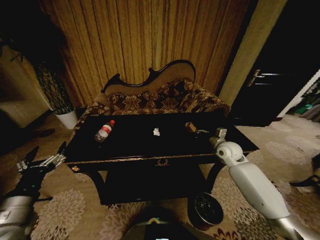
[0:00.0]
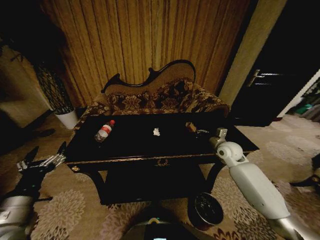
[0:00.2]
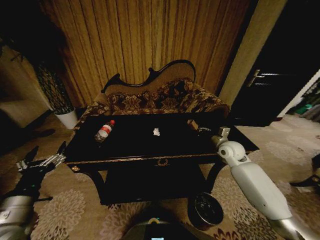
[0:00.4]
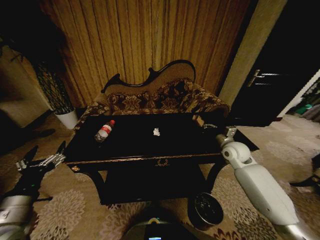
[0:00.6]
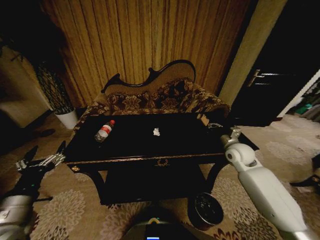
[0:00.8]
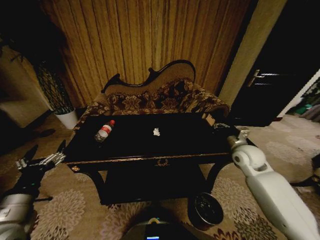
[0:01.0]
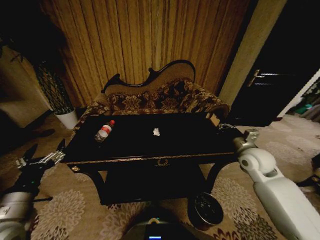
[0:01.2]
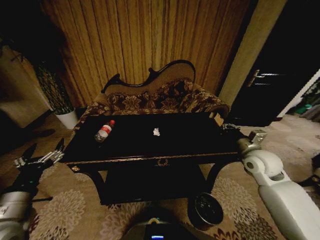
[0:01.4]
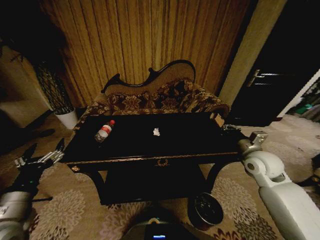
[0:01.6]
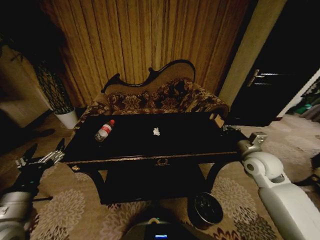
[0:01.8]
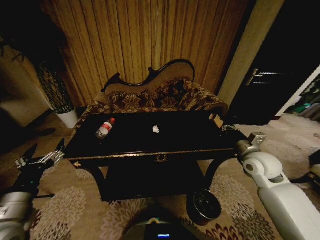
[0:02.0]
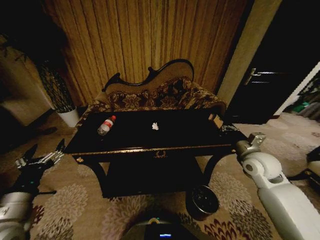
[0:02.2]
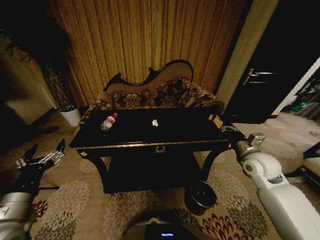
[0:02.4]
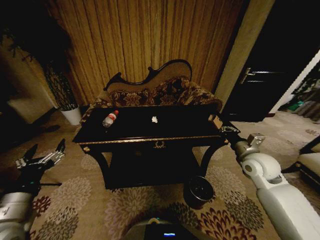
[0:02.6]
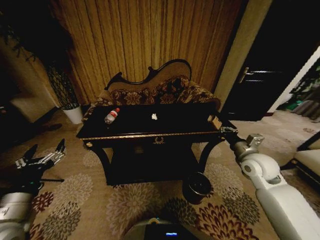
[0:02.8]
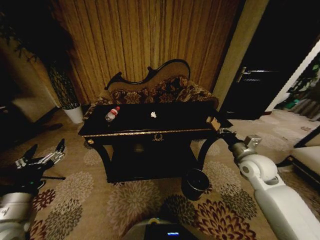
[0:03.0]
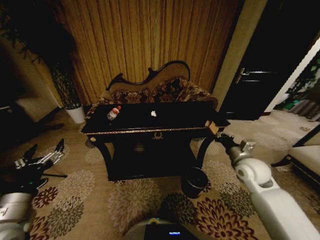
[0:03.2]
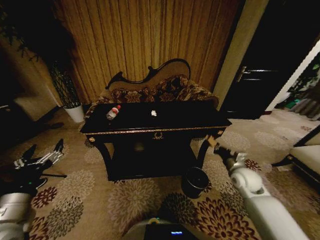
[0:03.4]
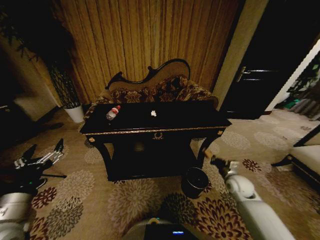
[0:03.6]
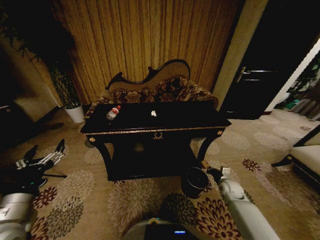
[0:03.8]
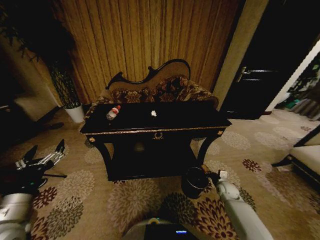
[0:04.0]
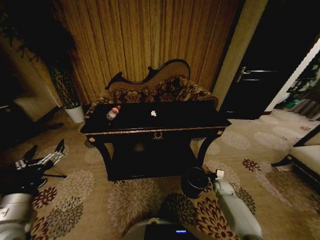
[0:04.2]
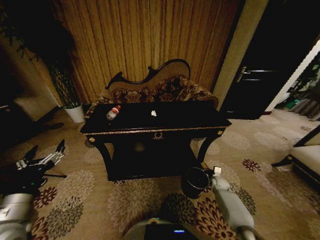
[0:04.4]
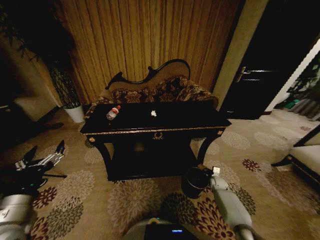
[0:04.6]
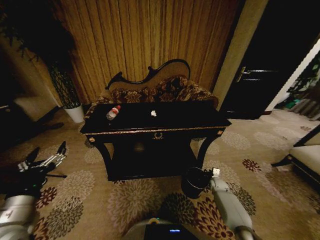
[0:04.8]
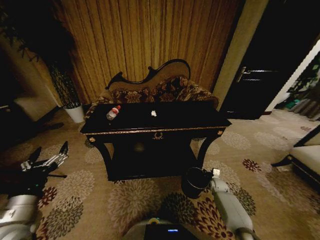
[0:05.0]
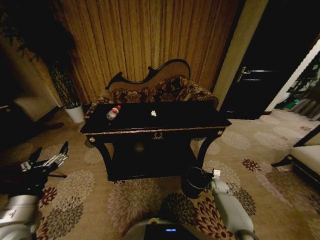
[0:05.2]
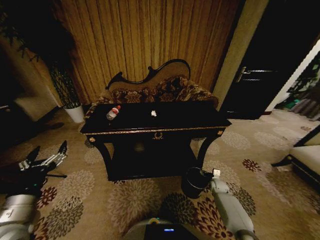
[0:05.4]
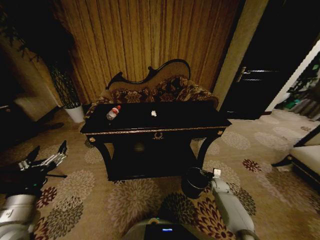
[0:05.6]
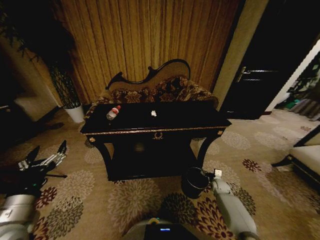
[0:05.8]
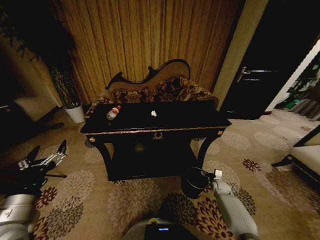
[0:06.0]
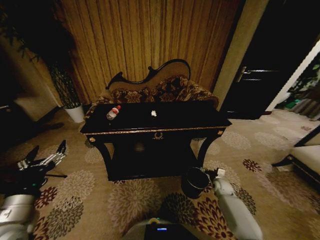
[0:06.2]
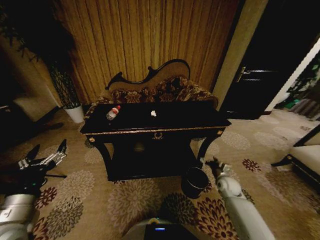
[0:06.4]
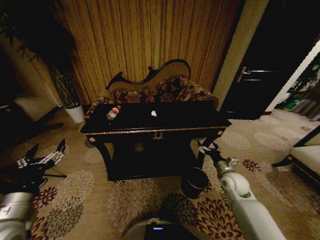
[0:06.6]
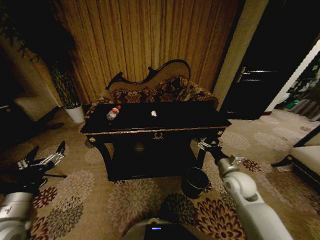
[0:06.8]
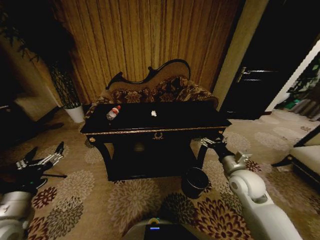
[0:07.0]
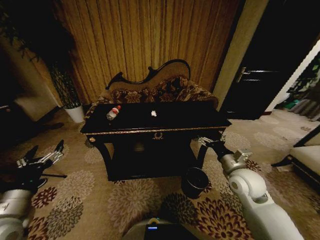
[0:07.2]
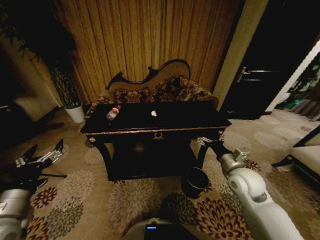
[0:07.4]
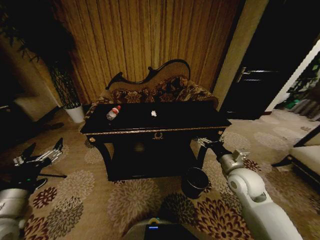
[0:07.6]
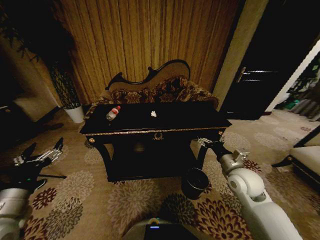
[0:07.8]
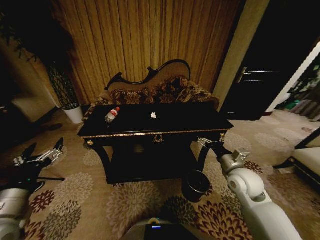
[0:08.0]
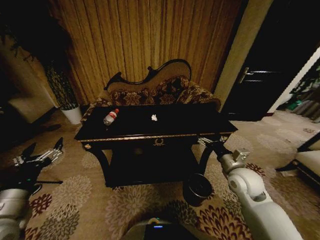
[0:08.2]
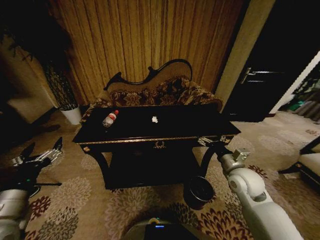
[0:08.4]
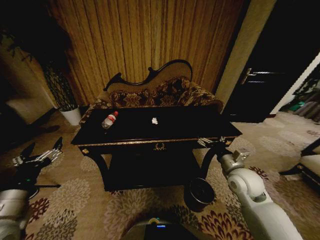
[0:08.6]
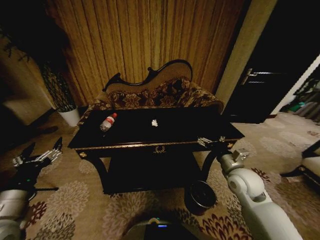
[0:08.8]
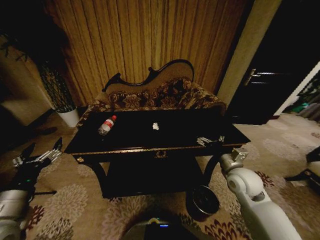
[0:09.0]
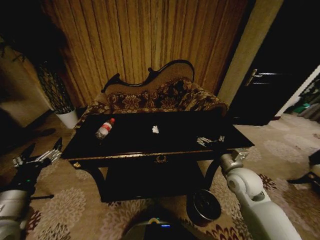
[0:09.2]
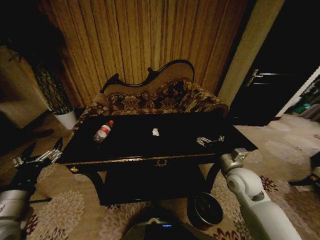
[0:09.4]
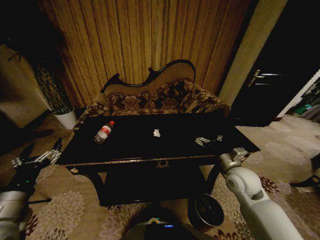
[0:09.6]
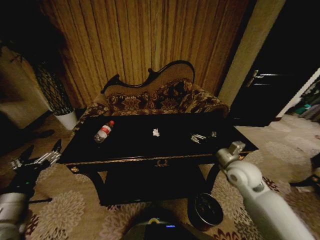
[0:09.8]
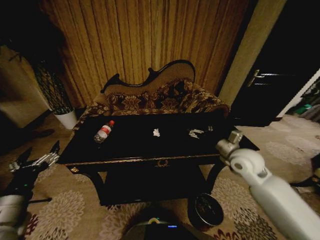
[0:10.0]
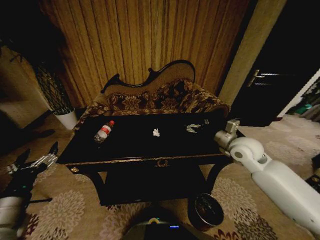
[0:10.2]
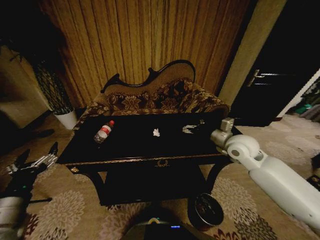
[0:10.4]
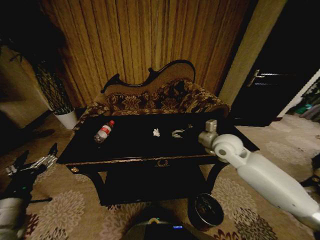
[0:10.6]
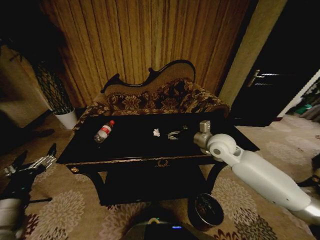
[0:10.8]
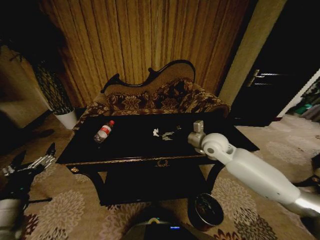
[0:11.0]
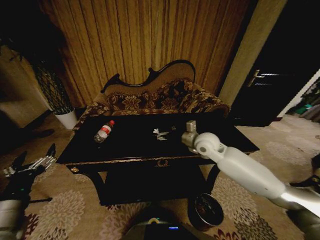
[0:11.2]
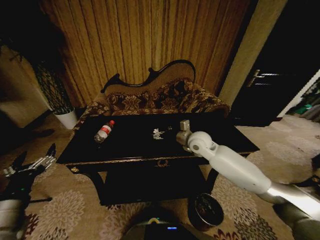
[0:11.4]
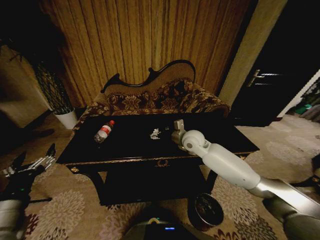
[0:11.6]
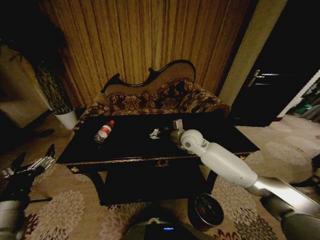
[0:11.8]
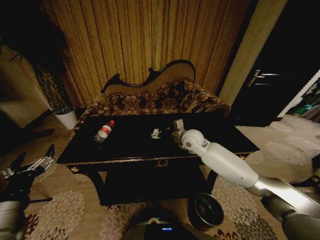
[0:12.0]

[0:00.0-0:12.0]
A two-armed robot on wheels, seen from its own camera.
Task of the whole recording: Move to the front of the table and place the trash on the table into the trash bin.
0:00.0 to 0:01.6: The right gripper shifts approximately 10 cm backward and upward.
0:03.0 to 0:04.4: The right gripper is displaced downward by approximately 35 cm.
0:04.4 to 0:06.0: The right gripper opens up.
0:06.0 to 0:07.6: The right gripper moves upward, some 30 cm.
0:09.0 to 0:10.4: The right gripper moves forward and upward, about 10 cm.
0:10.4 to 0:12.0: The right gripper is displaced to the left and forward by about 15 cm.

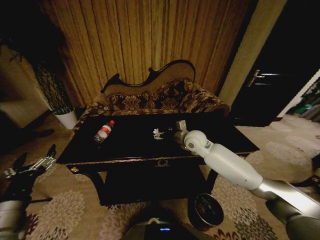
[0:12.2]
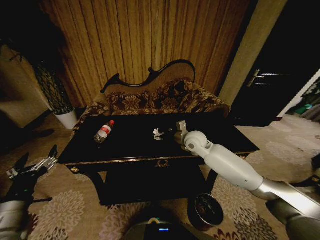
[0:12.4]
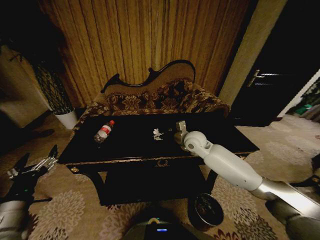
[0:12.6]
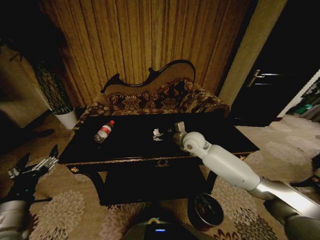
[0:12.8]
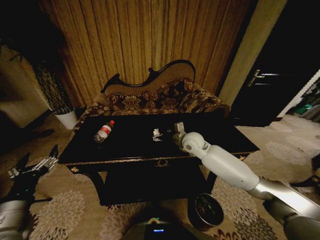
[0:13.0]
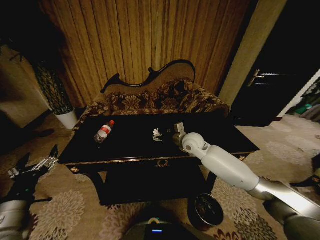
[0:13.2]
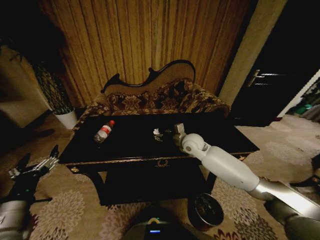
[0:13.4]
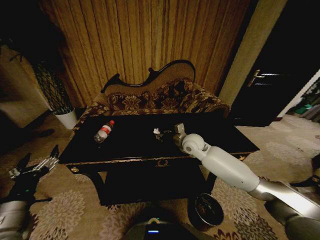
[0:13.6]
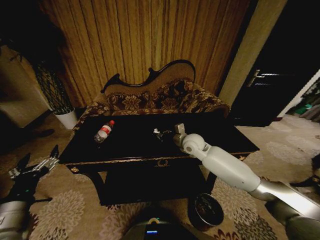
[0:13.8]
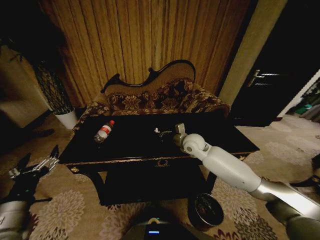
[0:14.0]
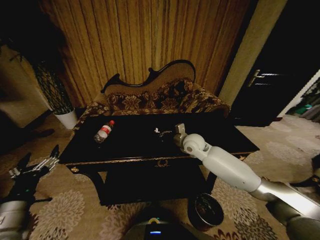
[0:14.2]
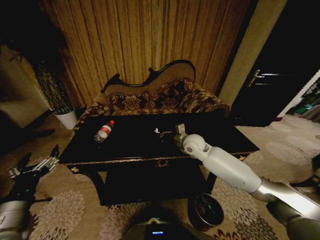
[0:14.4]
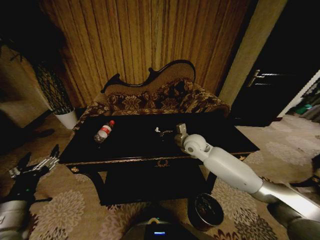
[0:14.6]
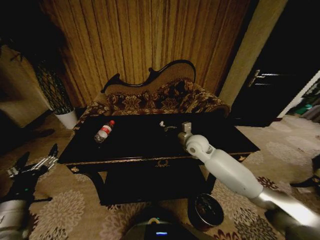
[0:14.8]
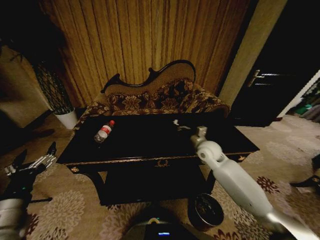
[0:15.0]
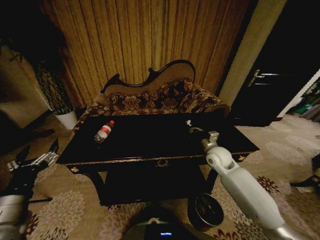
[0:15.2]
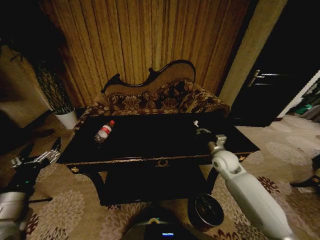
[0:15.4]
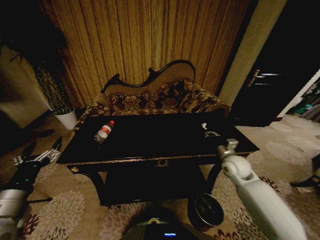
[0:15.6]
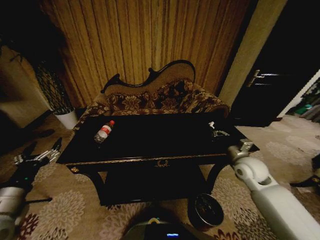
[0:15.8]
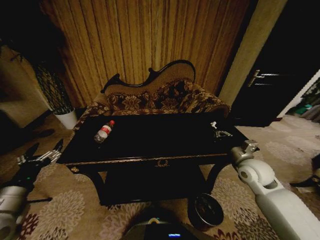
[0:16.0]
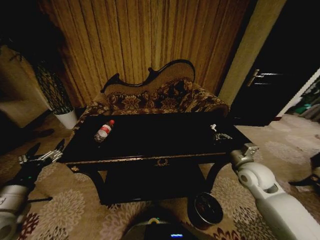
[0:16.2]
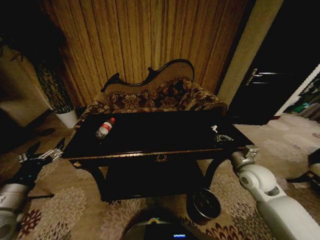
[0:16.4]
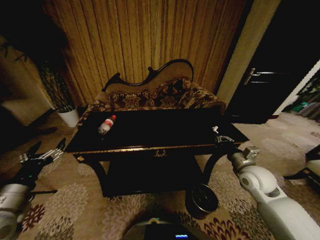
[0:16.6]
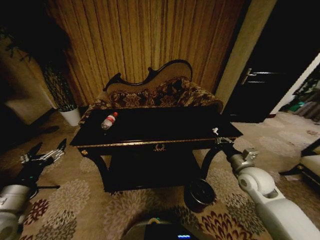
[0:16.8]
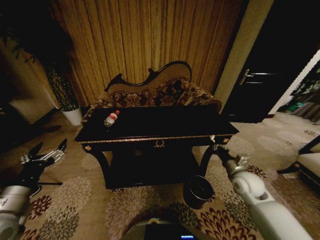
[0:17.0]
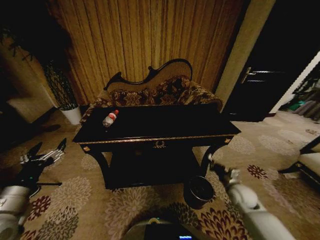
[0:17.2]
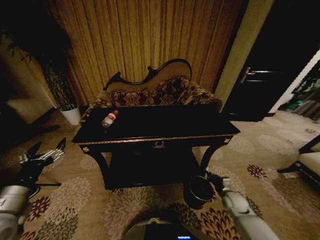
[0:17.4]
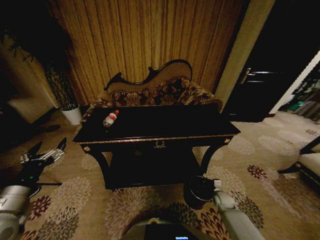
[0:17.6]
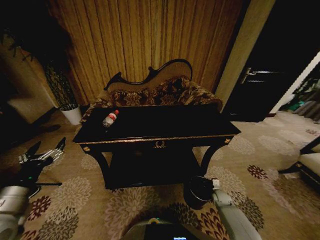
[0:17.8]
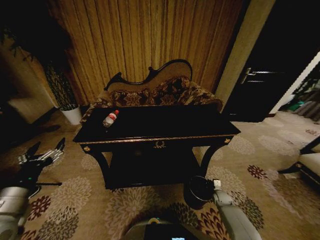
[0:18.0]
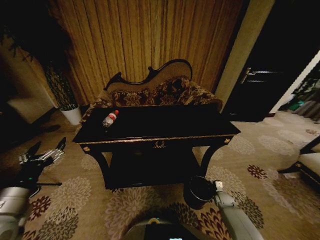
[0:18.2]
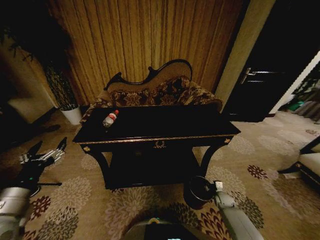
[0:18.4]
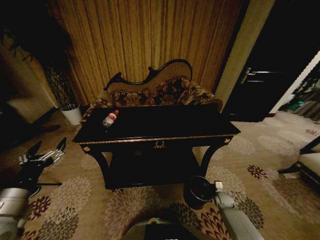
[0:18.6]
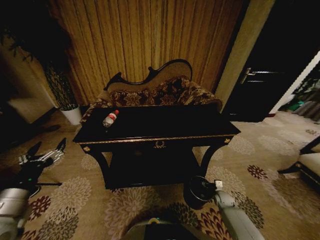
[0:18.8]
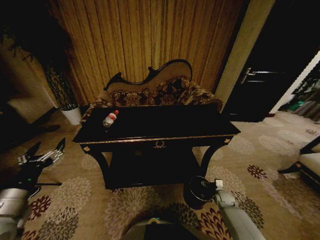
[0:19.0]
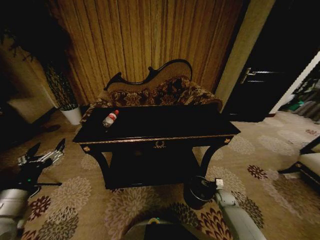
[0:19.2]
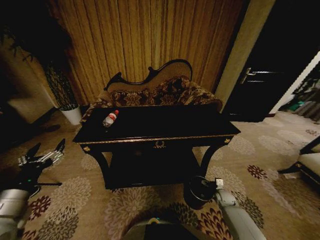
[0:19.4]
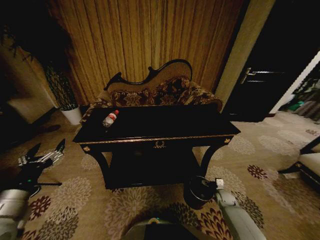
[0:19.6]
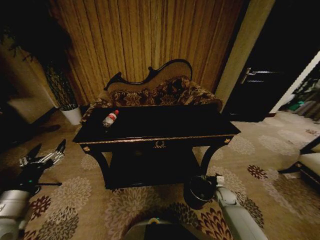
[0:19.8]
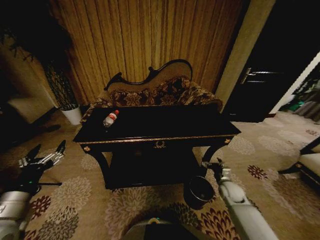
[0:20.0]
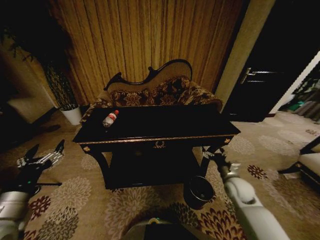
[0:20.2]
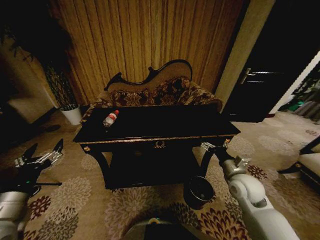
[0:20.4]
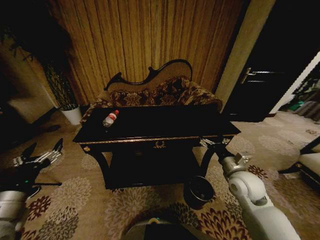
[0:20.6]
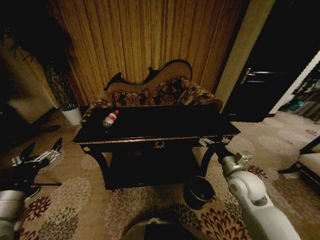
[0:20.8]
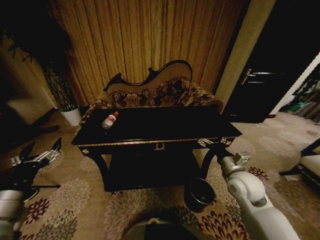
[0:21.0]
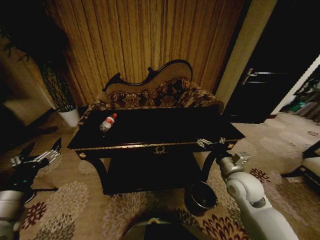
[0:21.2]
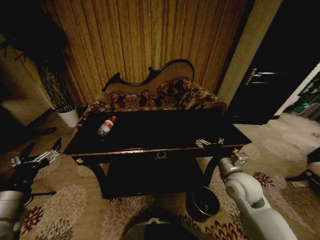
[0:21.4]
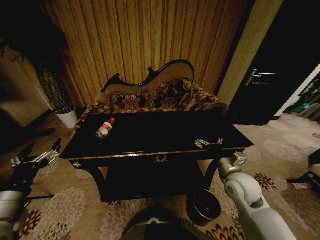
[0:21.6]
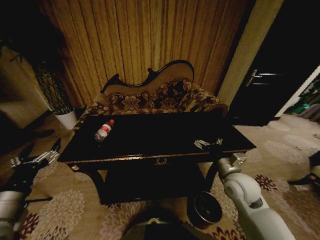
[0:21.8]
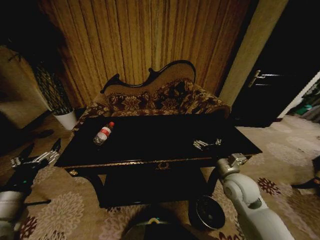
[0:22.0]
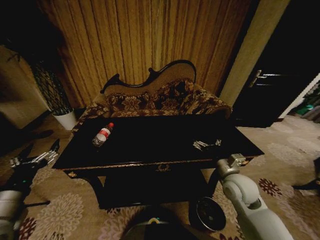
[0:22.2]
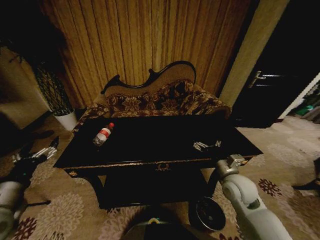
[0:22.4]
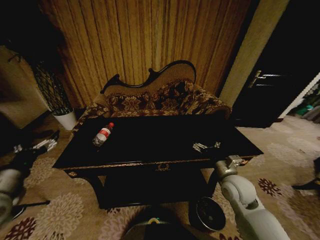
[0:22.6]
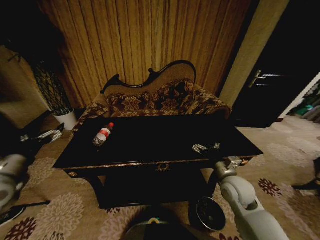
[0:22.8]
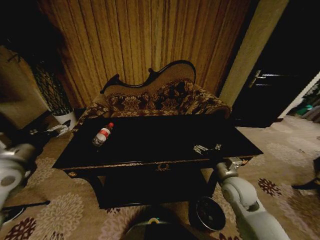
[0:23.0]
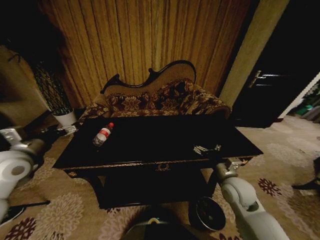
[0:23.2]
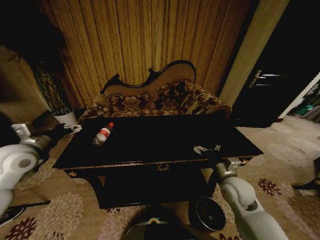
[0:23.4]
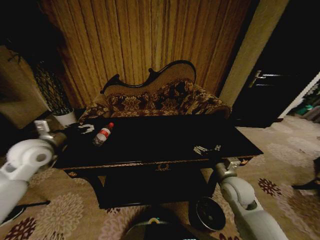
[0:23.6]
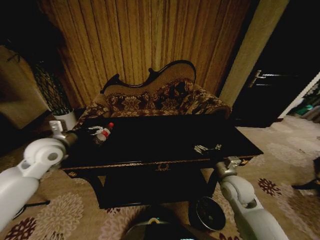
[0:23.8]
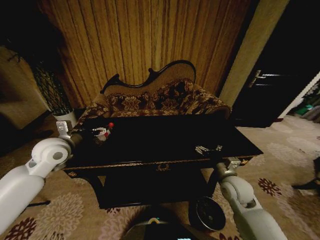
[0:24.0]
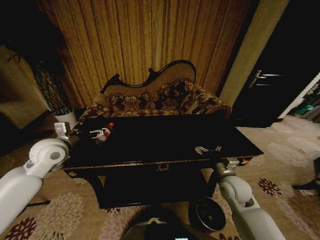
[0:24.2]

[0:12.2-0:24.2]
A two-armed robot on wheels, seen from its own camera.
Task of the whole recording: Move to the front of the table and place the trash on the table into the trash bin.
0:12.2 to 0:13.8: The right gripper closes its fingers.
0:13.8 to 0:15.2: The right gripper is displaced to the right by some 10 cm.
0:15.2 to 0:16.6: The right gripper moves backward and to the right, approximately 15 cm.
0:16.6 to 0:18.2: The right gripper shifts approximately 35 cm downward.
0:18.2 to 0:19.8: The right gripper is displaced upward by roughly 5 cm, and opens its fingers.
0:19.8 to 0:21.2: The right gripper goes some 30 cm upward.
0:21.2 to 0:22.6: The left gripper is displaced forward by about 5 cm.
0:22.6 to 0:24.2: The left gripper goes roughly 20 cm forward and to the right.
